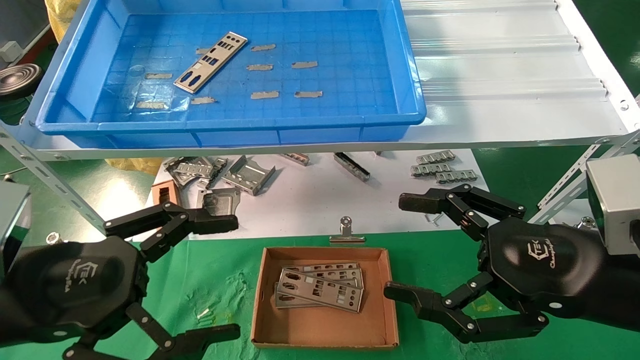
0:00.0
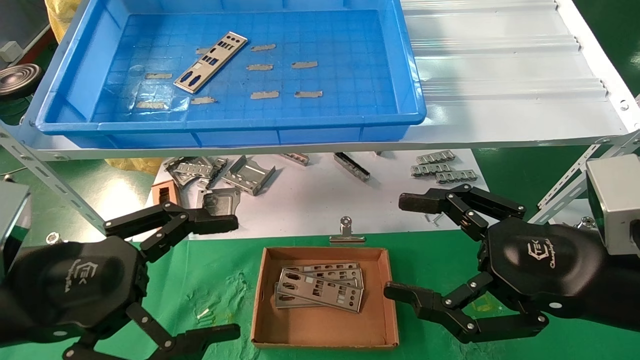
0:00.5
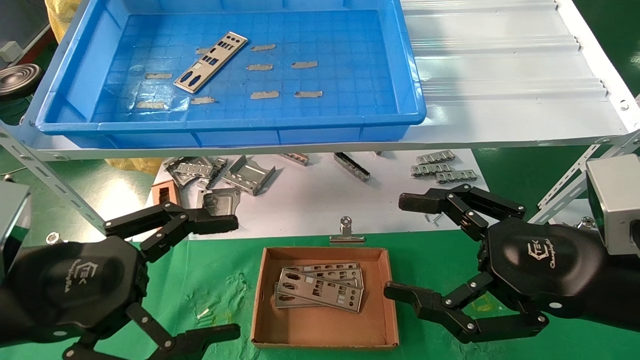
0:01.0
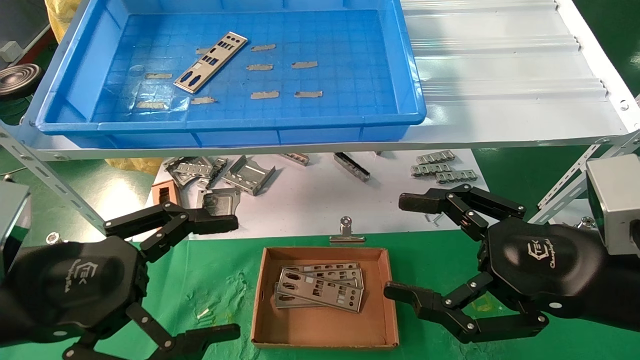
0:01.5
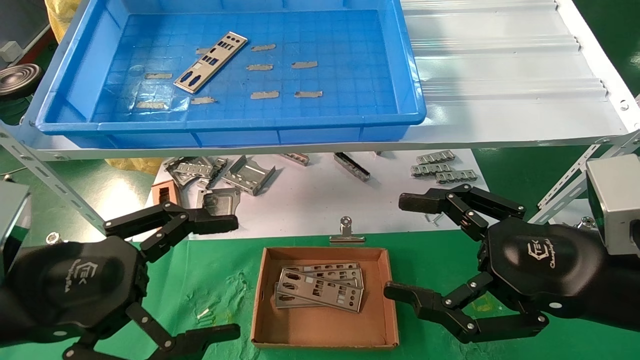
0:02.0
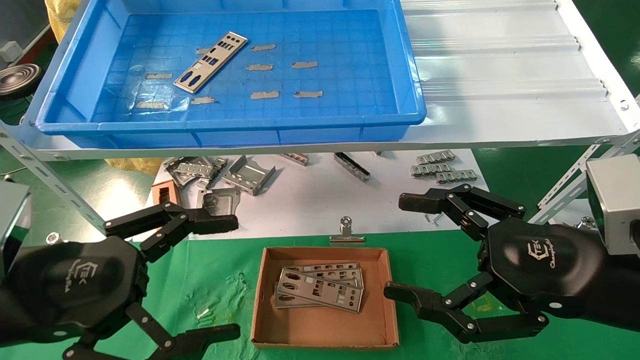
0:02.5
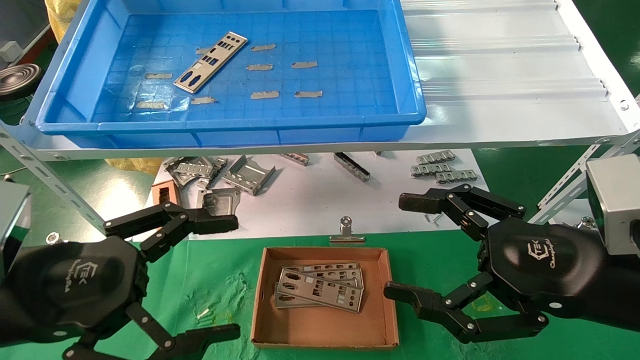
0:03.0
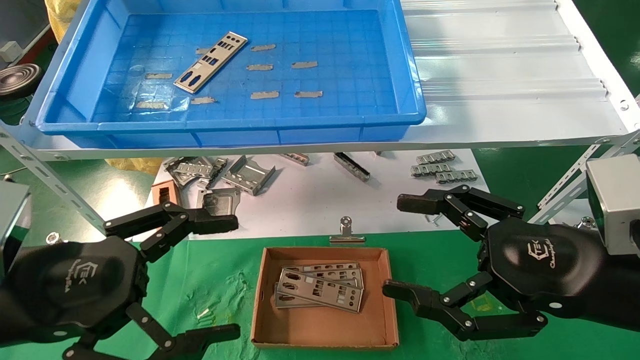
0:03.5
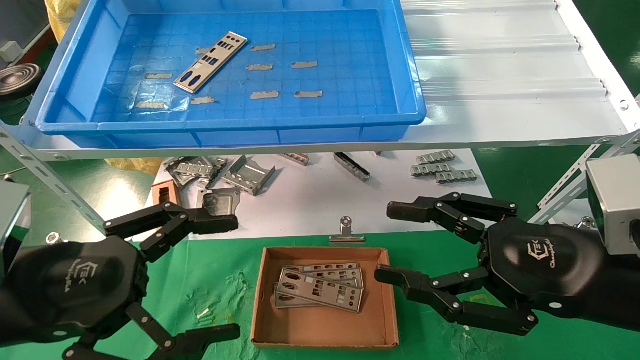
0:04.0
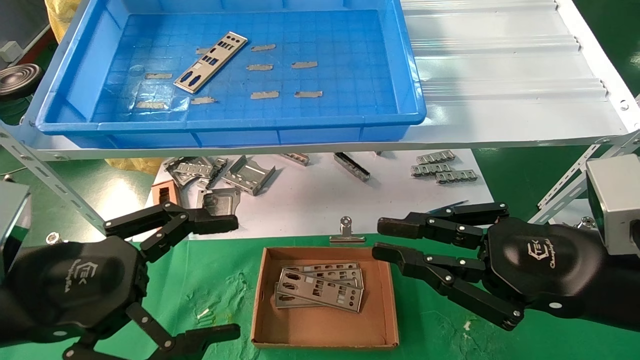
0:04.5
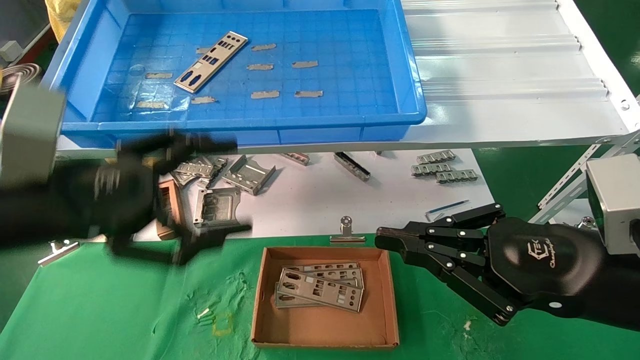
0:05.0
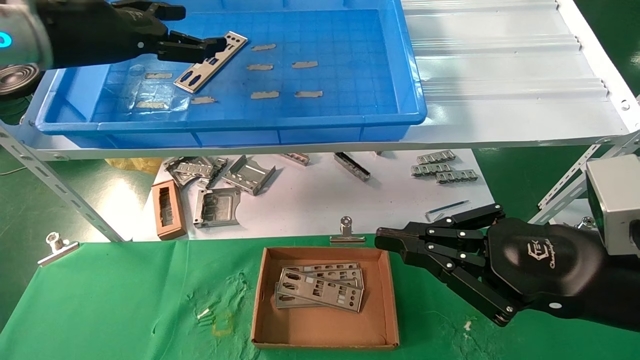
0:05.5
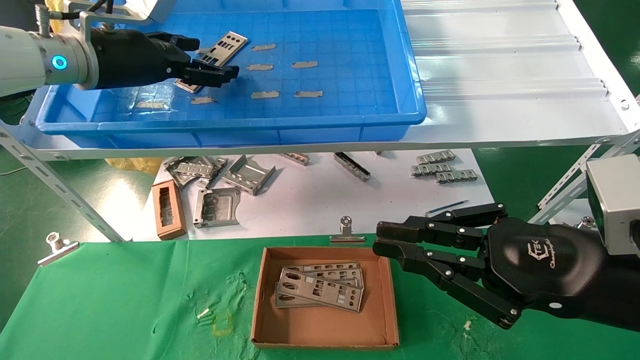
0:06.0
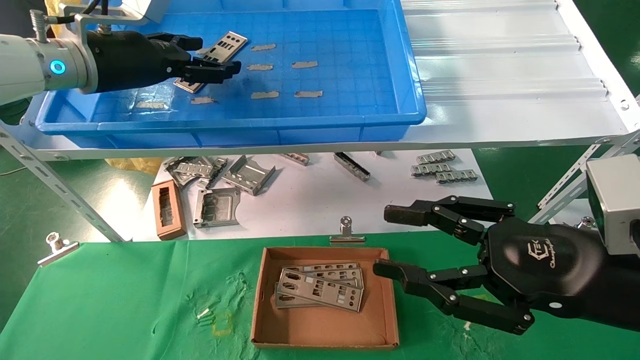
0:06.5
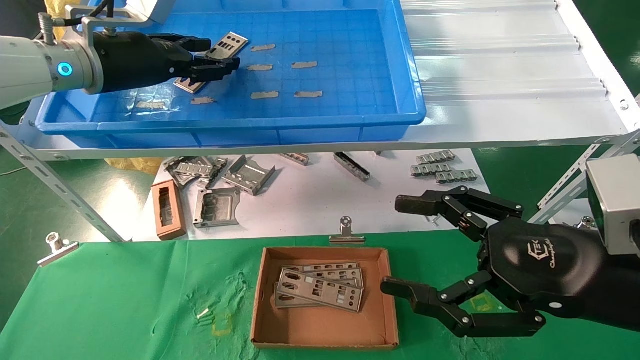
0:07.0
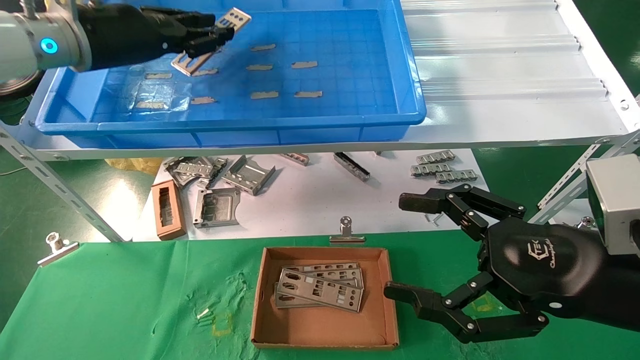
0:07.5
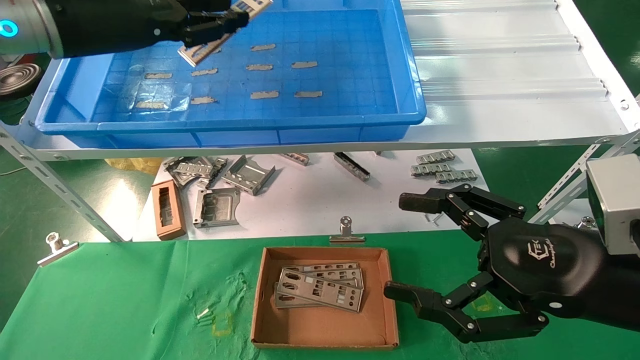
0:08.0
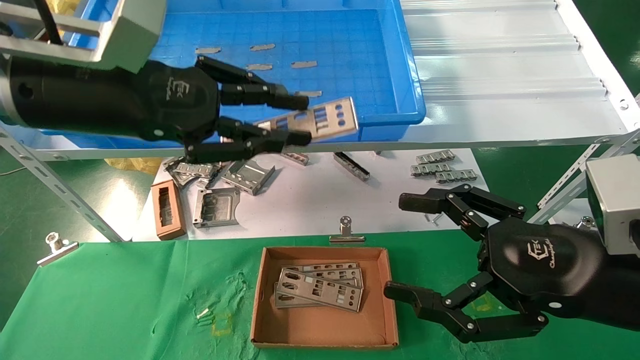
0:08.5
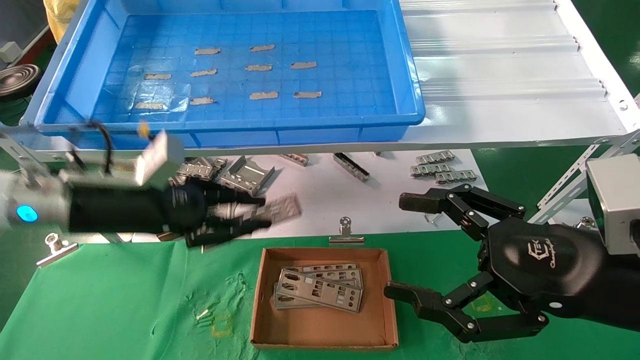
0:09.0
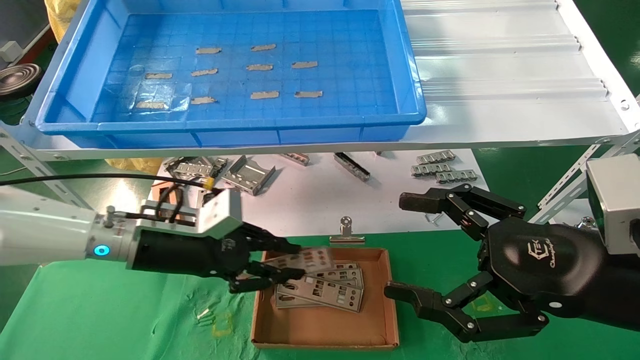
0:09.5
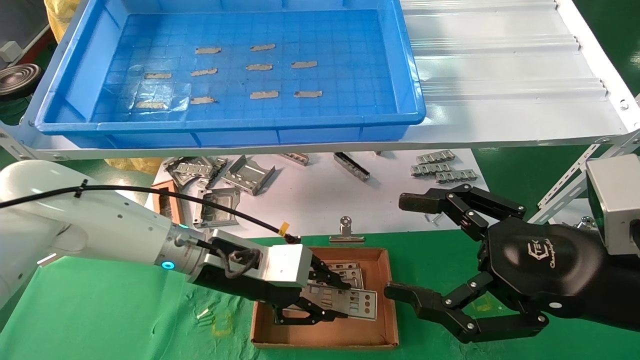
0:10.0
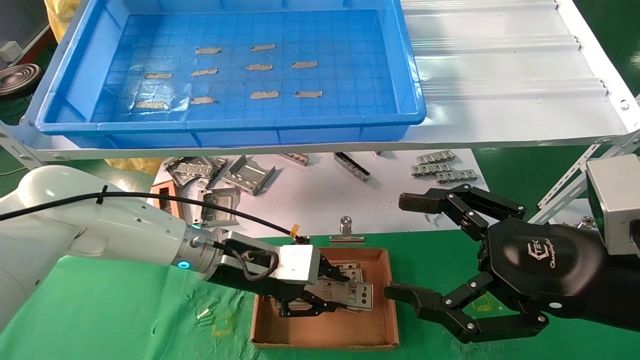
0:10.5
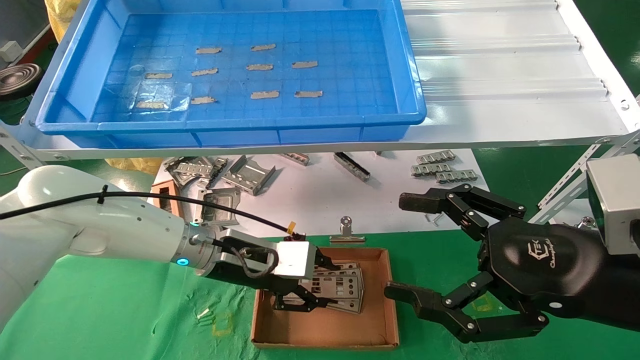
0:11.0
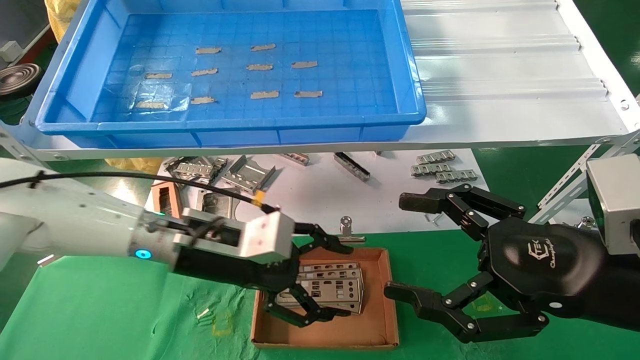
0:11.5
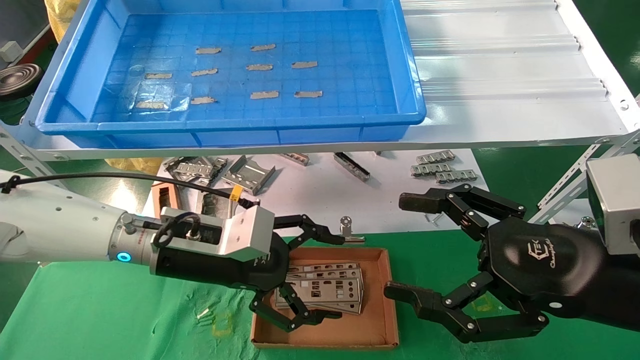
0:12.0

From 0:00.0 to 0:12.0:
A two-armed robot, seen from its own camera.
Task of the whole recording: pick up the parts on the tray and put them in the cardboard box.
Step, from 0:05.5 to 0:07.5: Pick up the IO bracket from the container box.
Step, from 0:08.0 to 0:10.5: Place the IO bracket into the ingredient slot.
From 0:00.0 to 0:04.0: Both grippers stay put.
From 0:04.0 to 0:06.0: The right gripper closes. The left gripper is displaced forward and upward by approximately 30 cm.
From 0:06.0 to 0:08.0: The left gripper goes roughly 5 cm backward, and closes up, while the right gripper opens its fingers.
From 0:08.0 to 0:10.0: The left gripper goes about 30 cm downward and to the right.
From 0:10.0 to 0:12.0: The left gripper is displaced to the left by some 5 cm, and opens.

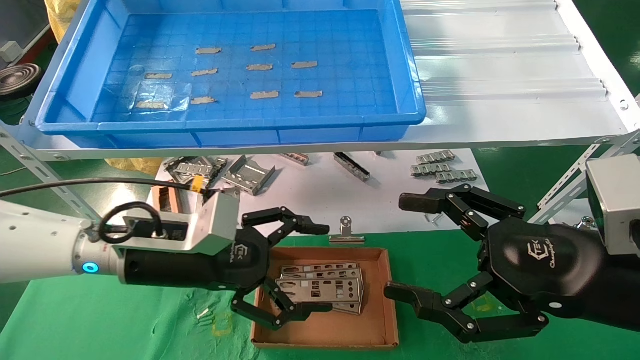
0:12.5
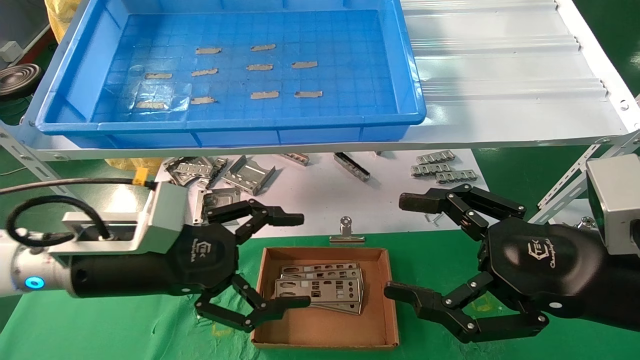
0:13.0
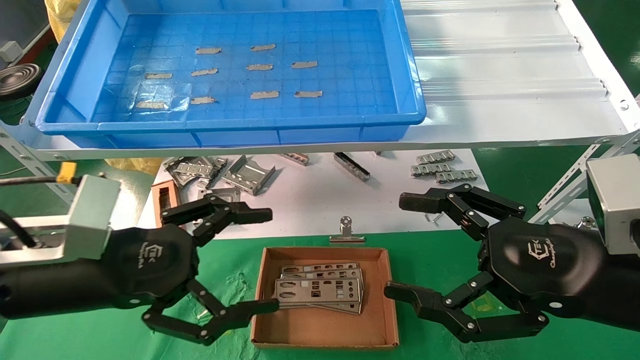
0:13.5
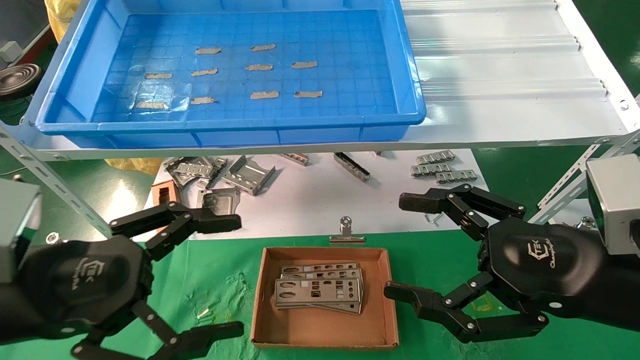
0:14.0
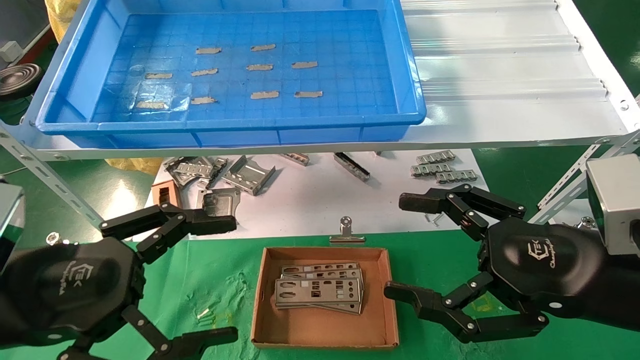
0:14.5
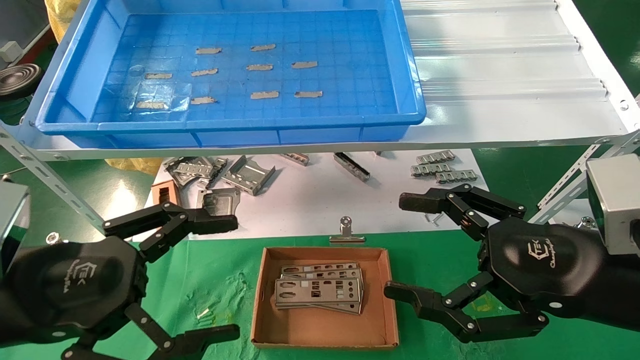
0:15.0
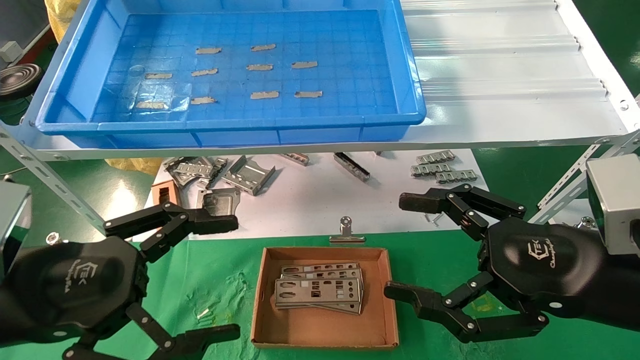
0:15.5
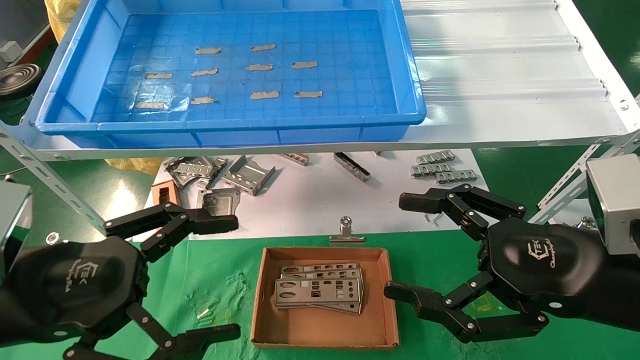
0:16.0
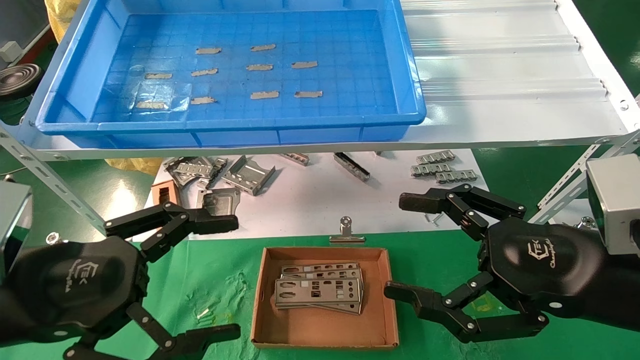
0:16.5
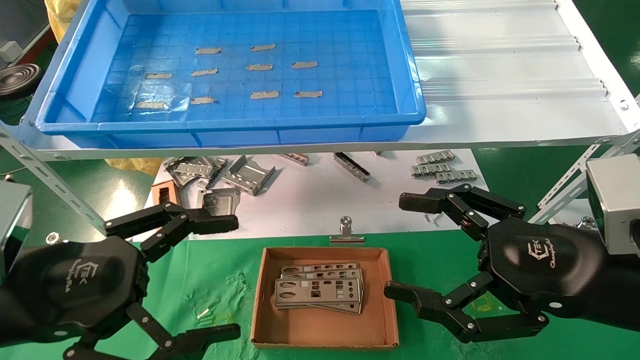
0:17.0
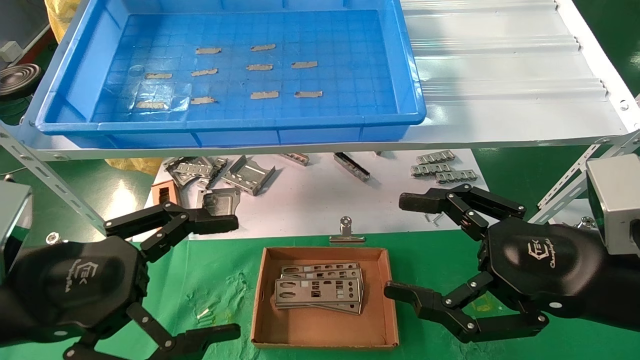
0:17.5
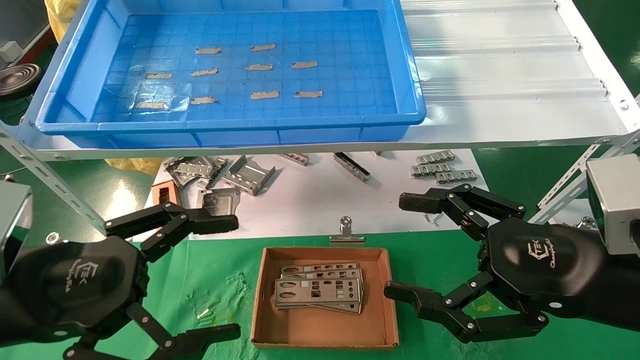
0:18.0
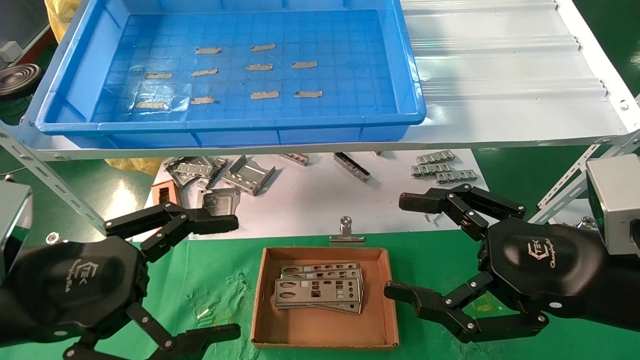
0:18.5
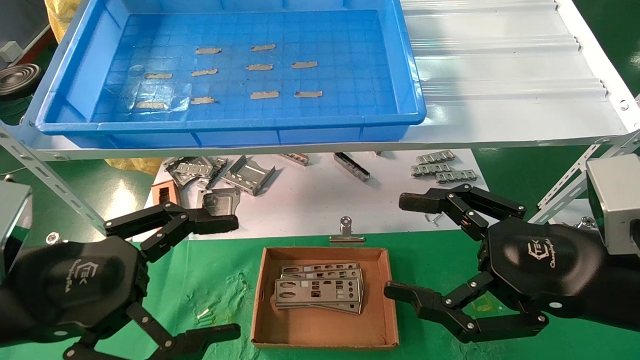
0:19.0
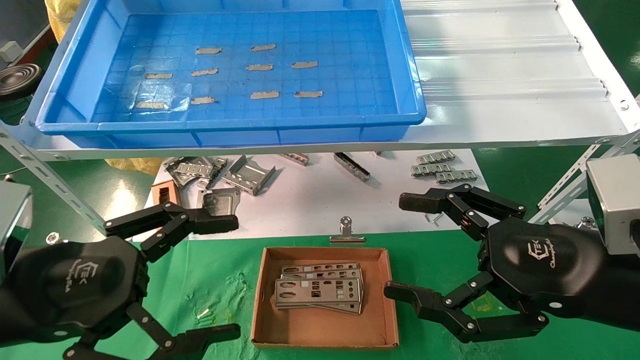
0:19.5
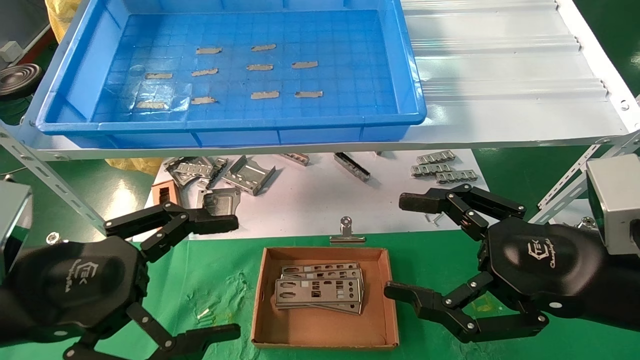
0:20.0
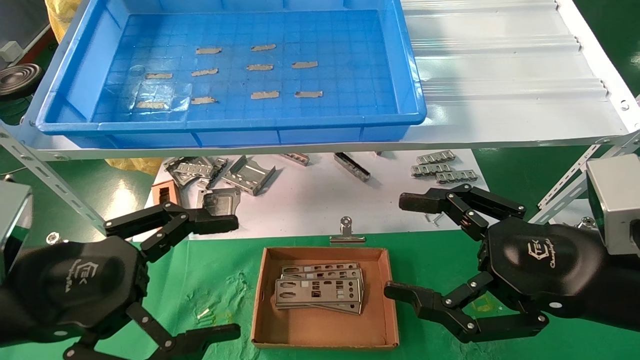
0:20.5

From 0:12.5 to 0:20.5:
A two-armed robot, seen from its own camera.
Task of the whole recording: pick up the parts on the tray and put them in the cardboard box.
From 0:12.5 to 0:14.5: The left gripper goes some 15 cm backward and to the left.
From 0:14.5 to 0:20.5: The two grippers keep their place.
